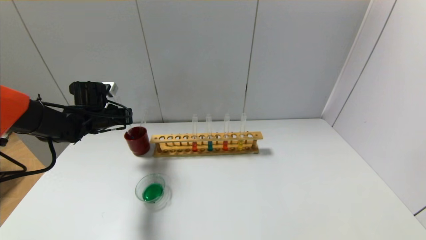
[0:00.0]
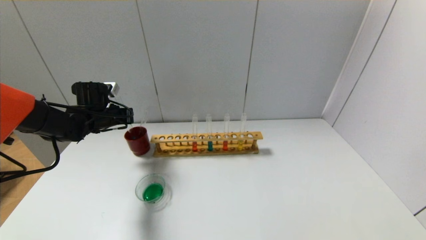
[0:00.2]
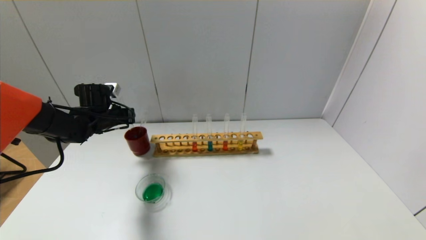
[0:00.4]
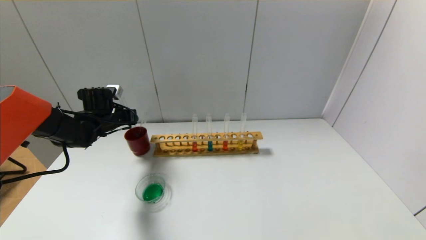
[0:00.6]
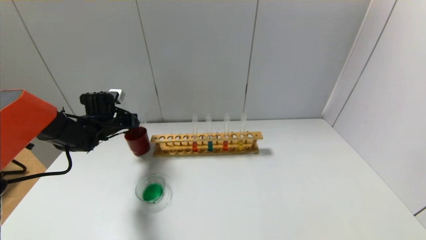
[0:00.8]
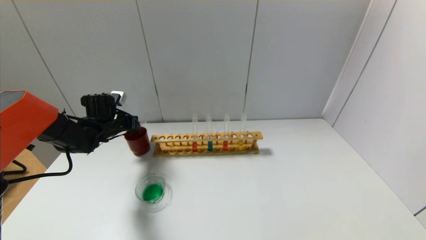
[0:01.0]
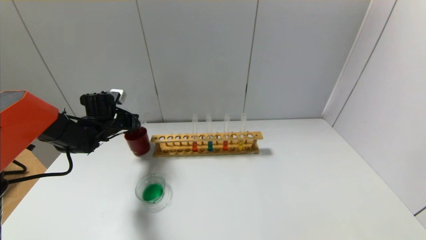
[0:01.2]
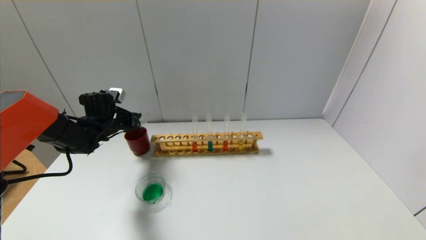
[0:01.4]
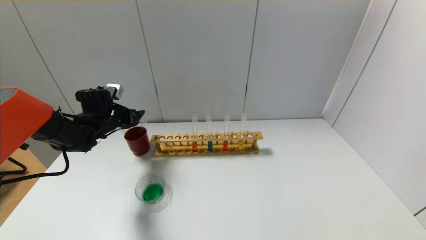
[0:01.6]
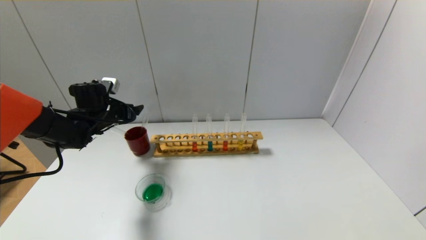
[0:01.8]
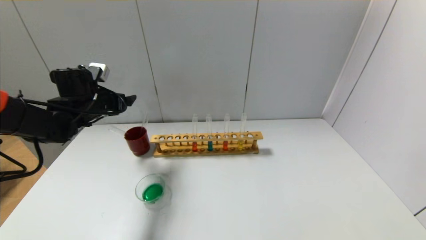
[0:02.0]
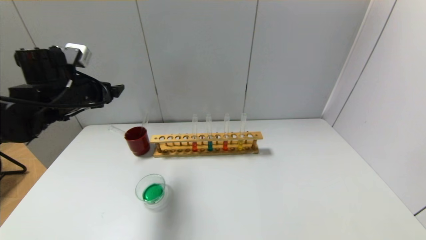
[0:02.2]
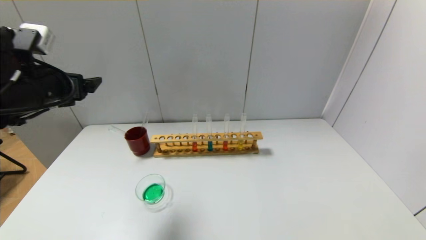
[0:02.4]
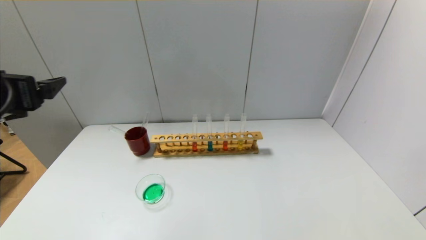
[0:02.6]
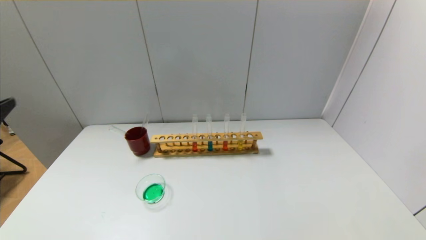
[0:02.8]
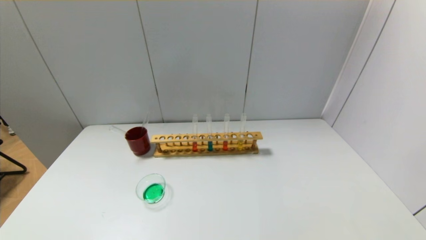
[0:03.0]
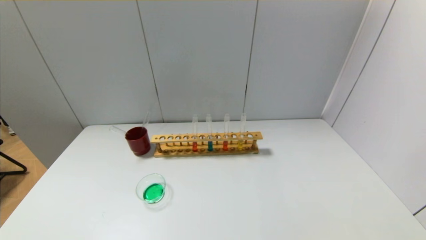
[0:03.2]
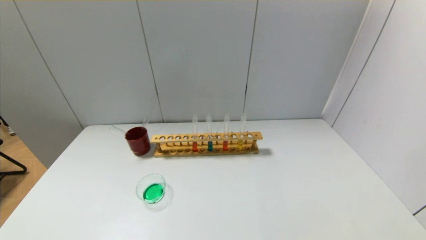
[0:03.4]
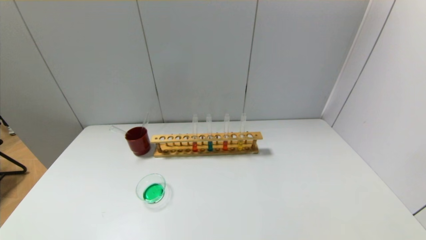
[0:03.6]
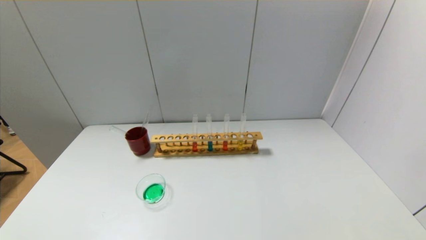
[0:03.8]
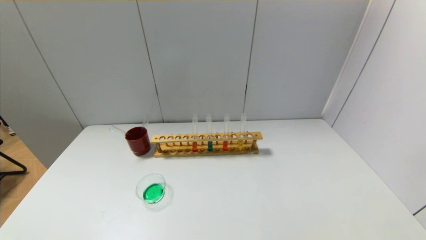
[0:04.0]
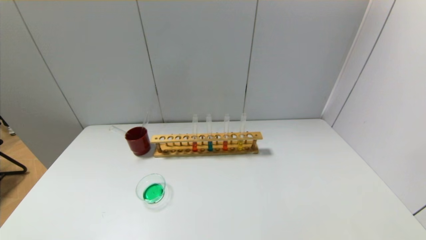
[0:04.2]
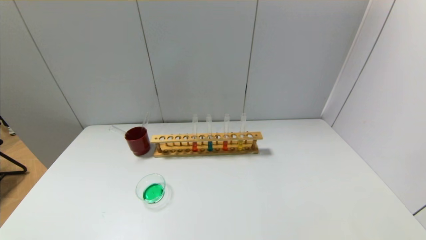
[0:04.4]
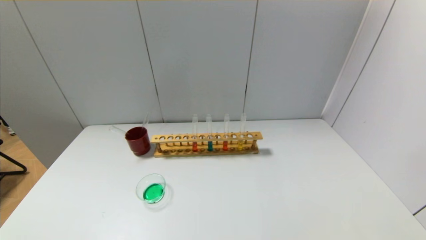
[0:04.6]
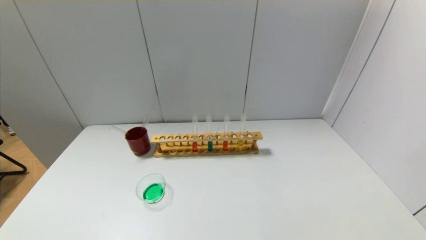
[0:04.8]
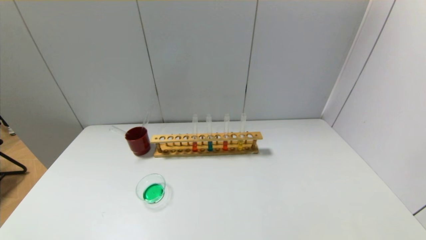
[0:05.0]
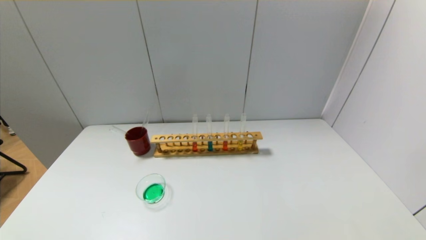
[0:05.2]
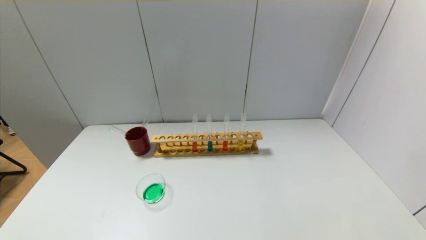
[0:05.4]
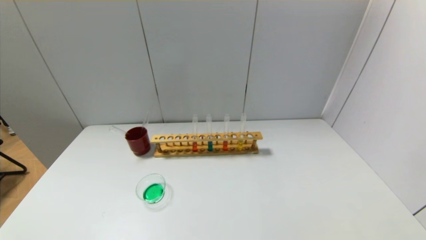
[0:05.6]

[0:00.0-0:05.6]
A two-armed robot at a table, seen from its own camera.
0:00.0 to 0:01.4: The left gripper opens up.
0:01.4 to 0:02.8: The left gripper heads backward and upward, covering approximately 40 cm, and opens its fingers.

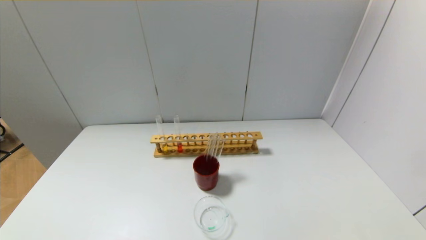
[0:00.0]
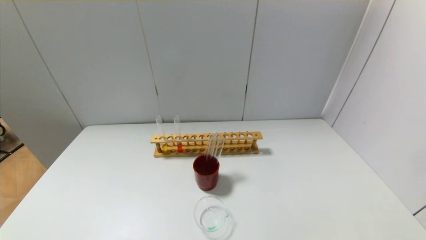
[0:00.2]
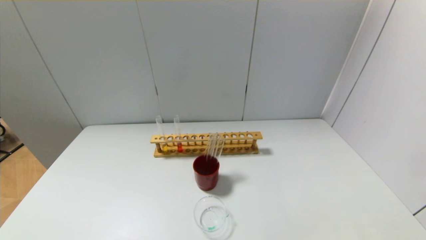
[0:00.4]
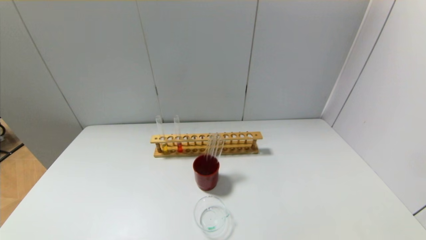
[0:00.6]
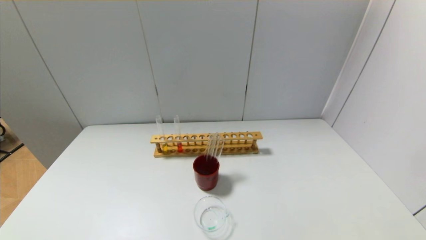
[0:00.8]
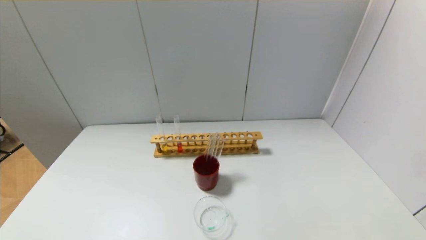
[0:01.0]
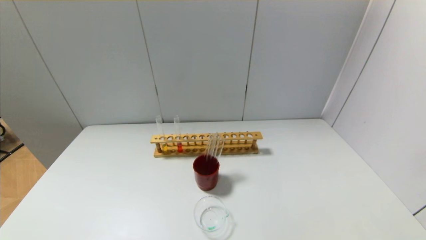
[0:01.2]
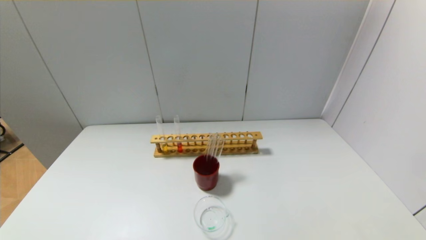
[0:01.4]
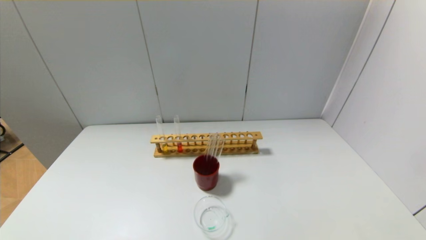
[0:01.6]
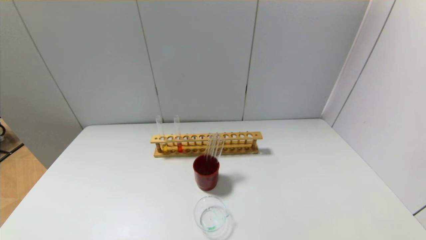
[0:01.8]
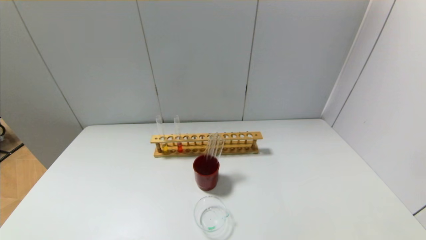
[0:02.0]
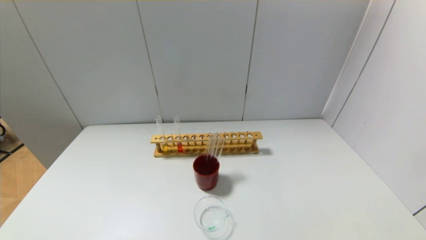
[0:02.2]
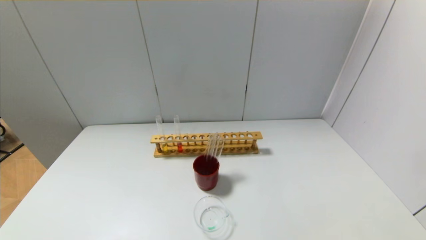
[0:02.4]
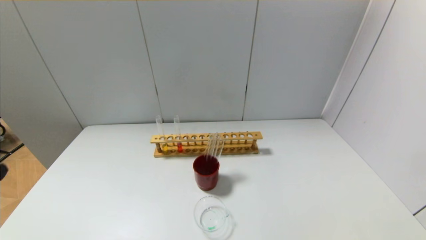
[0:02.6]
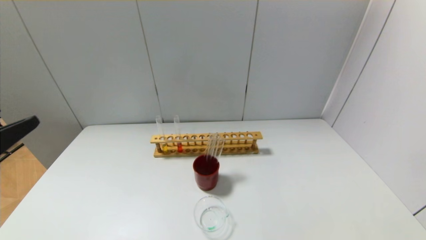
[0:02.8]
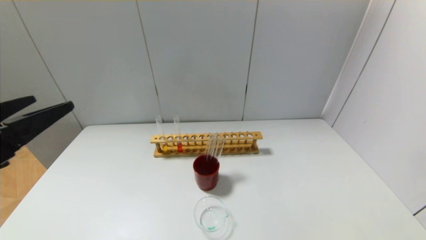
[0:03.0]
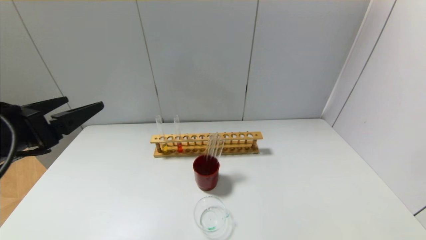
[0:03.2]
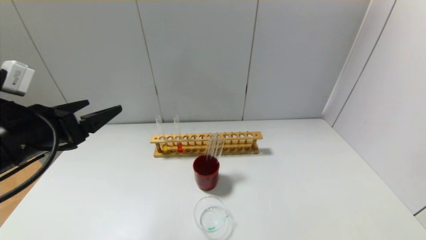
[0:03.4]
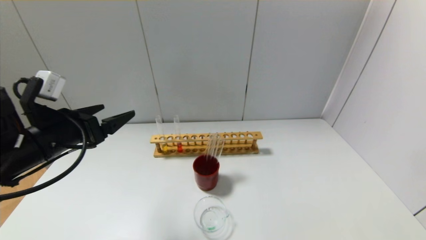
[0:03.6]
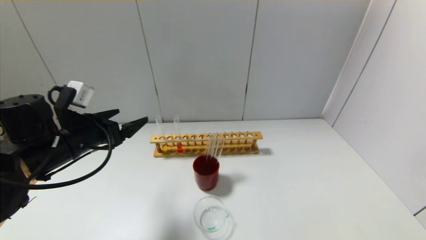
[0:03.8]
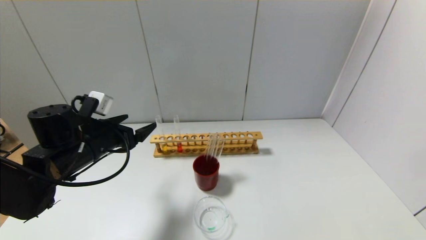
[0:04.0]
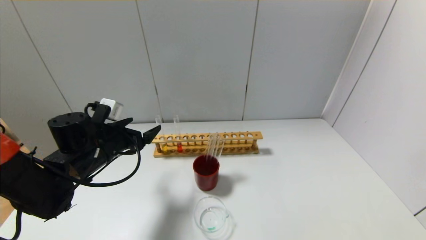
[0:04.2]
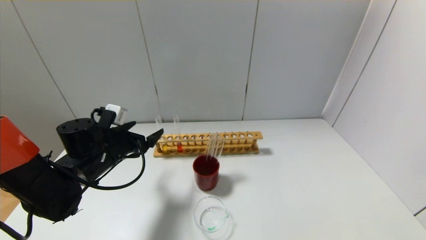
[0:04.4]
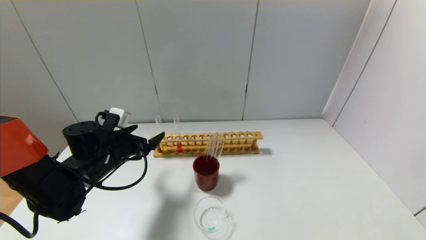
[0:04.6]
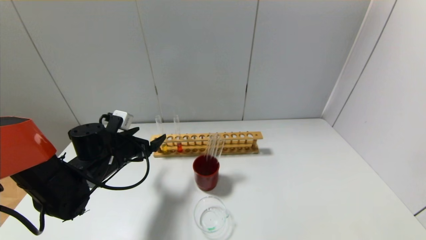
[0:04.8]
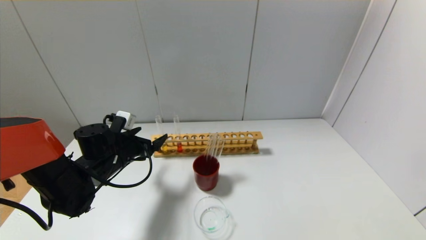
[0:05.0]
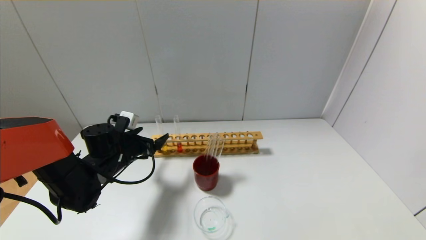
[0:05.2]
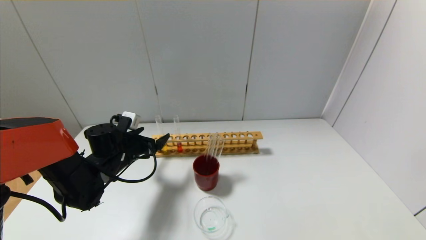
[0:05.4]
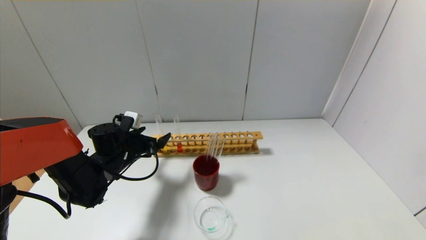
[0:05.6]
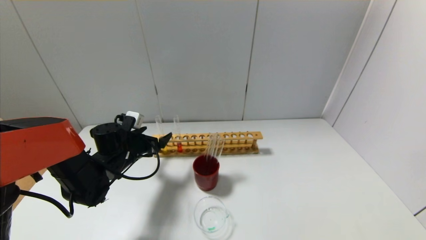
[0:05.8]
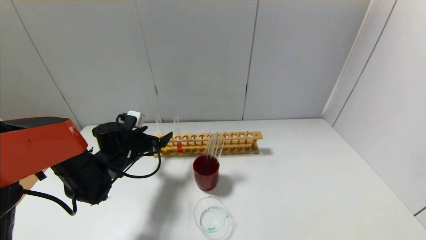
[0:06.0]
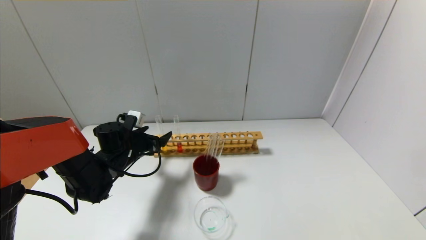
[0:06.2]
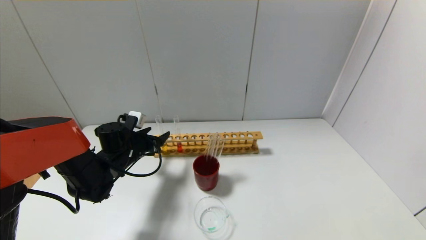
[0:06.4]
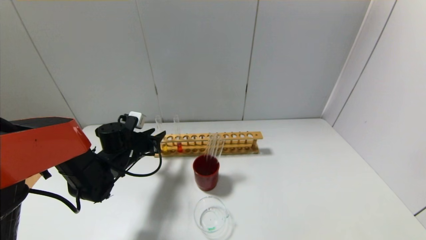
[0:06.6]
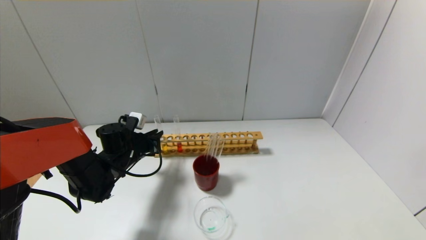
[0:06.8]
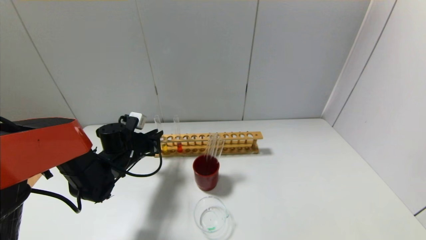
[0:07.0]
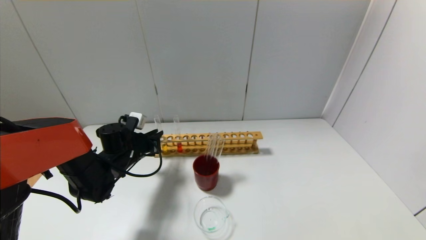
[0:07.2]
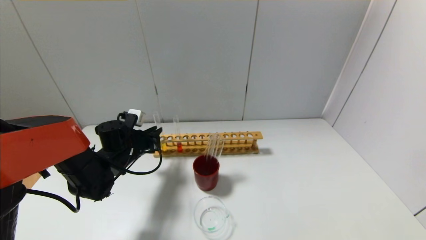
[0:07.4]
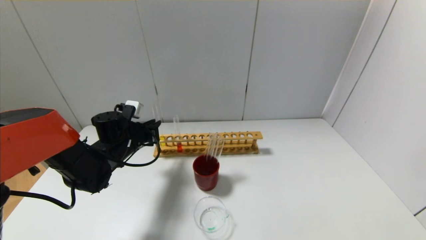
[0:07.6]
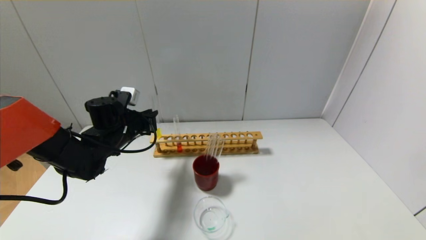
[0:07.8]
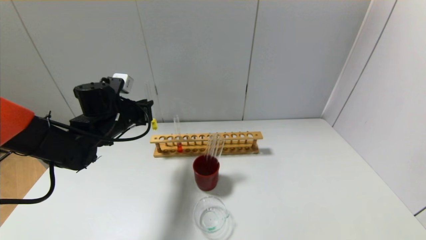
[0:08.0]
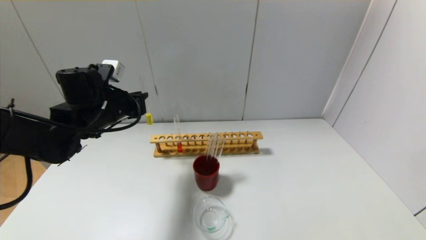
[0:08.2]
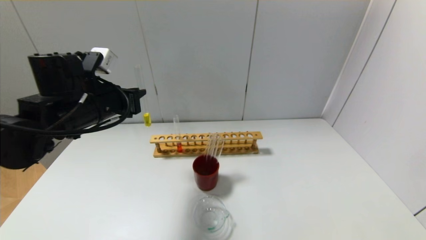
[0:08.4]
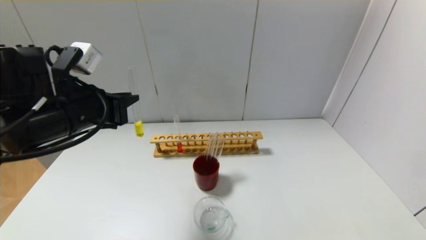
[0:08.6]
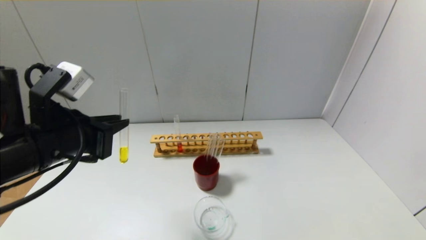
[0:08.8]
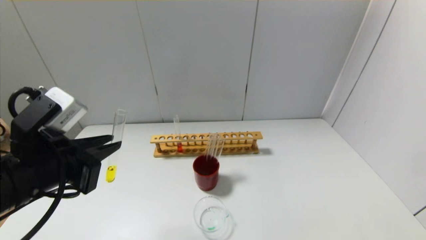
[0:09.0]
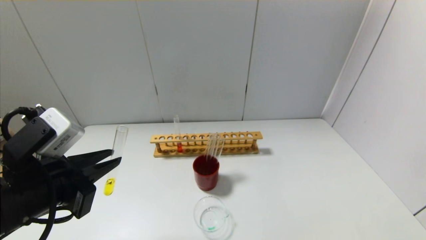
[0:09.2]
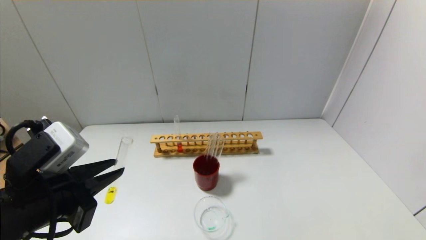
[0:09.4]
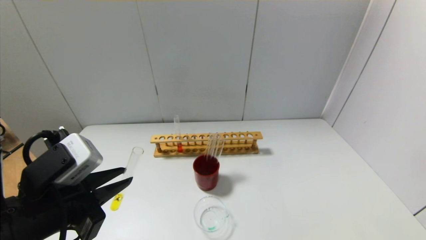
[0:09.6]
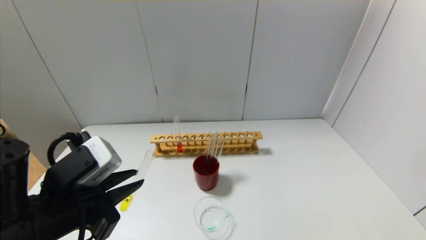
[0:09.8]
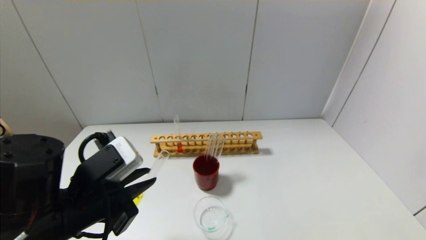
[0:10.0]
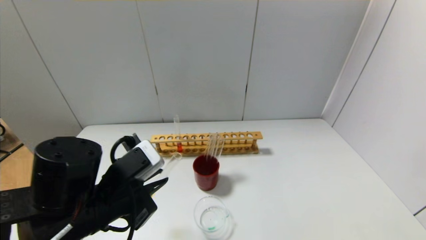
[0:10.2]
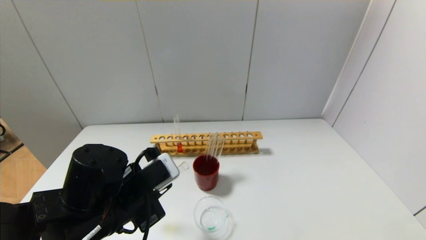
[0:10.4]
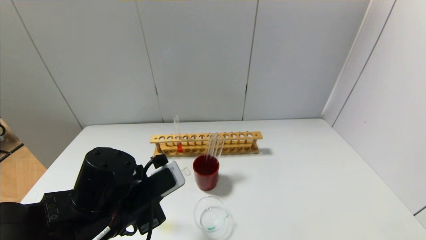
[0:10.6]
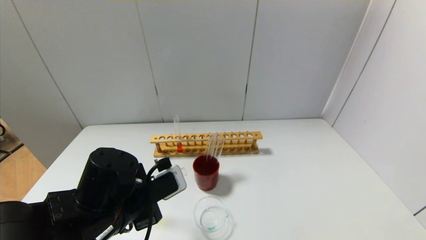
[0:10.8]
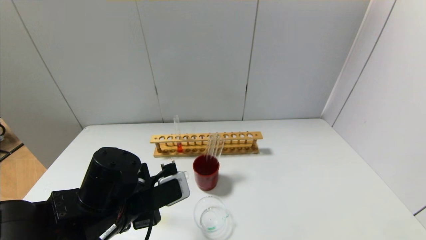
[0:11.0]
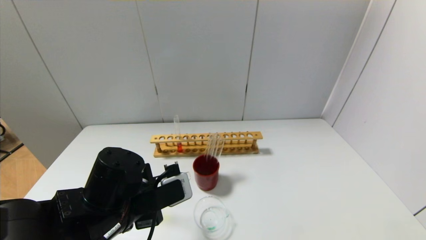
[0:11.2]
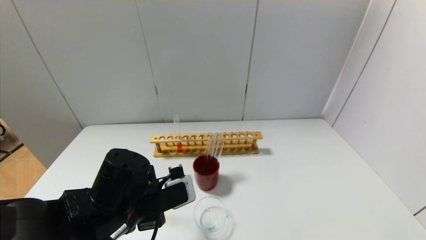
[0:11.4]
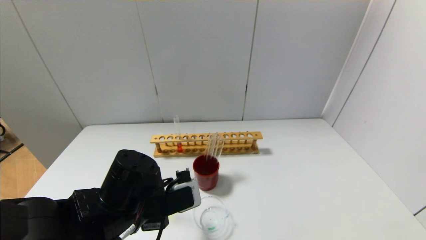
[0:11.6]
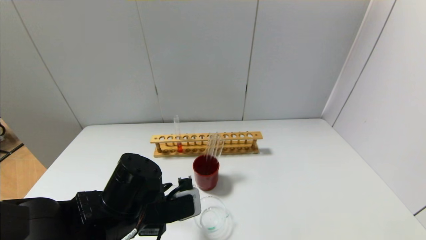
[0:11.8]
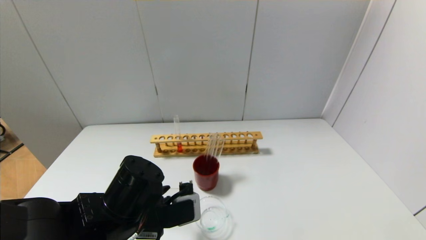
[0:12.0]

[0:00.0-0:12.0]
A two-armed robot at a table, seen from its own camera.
Step, 0:00.0 to 0:06.8: Grasp the yellow reagent with the left gripper.
0:00.0 to 0:01.6: Both grippers stay put.
0:01.6 to 0:03.0: The left gripper moves upward and forward, roughly 25 cm.
0:03.0 to 0:04.4: The left gripper is displaced forward and downward by about 25 cm.
0:04.4 to 0:06.0: The left gripper moves forward, approximately 5 cm.
0:06.0 to 0:07.6: The left gripper closes up.
0:07.6 to 0:09.0: The left gripper travels backward and upward by approximately 25 cm.
0:09.0 to 0:10.4: The left gripper travels downward and to the right by approximately 10 cm.
